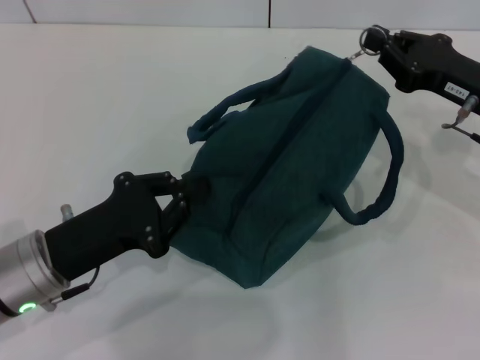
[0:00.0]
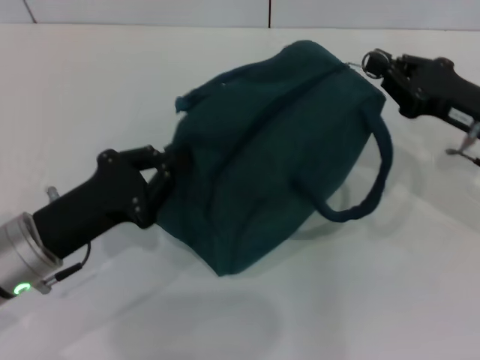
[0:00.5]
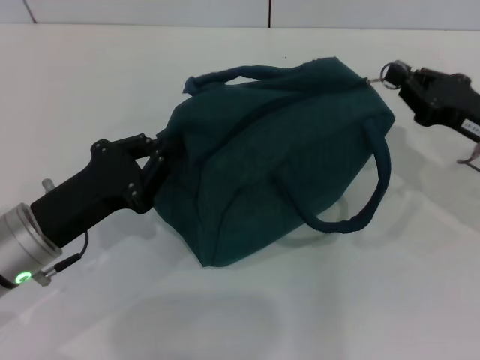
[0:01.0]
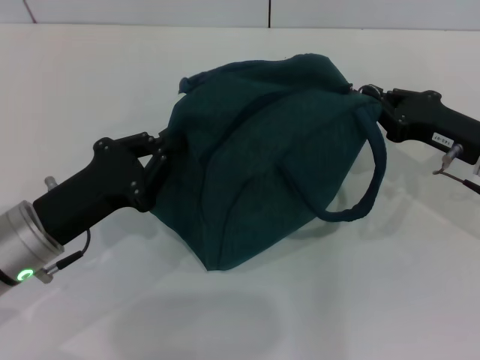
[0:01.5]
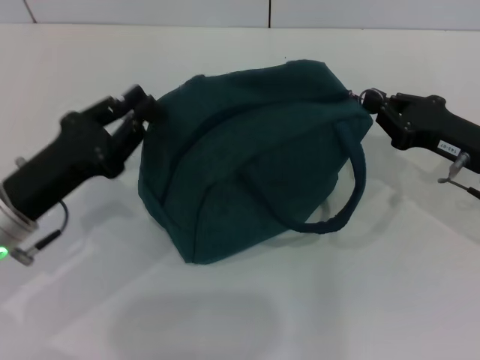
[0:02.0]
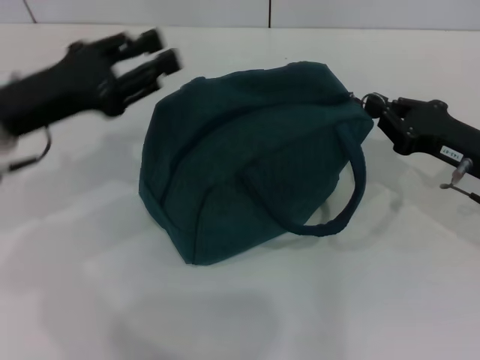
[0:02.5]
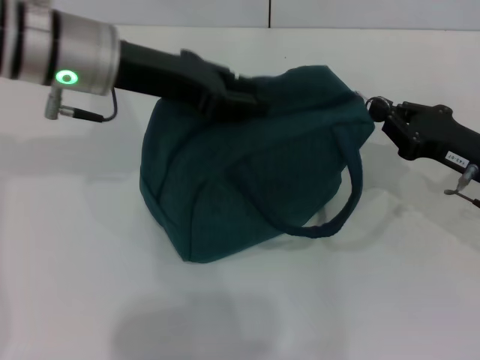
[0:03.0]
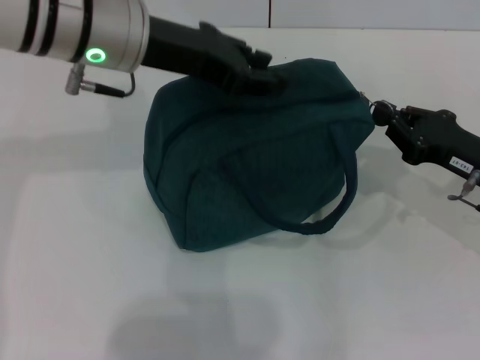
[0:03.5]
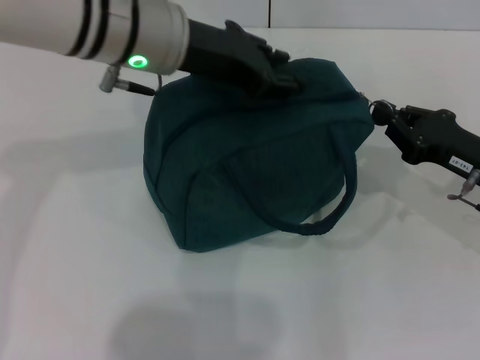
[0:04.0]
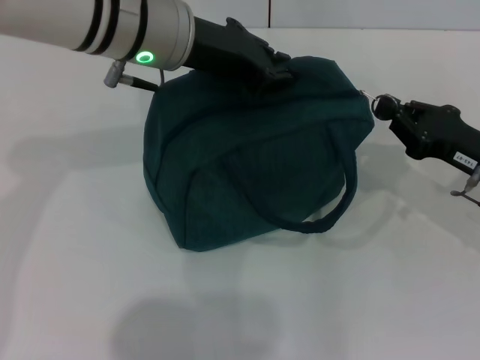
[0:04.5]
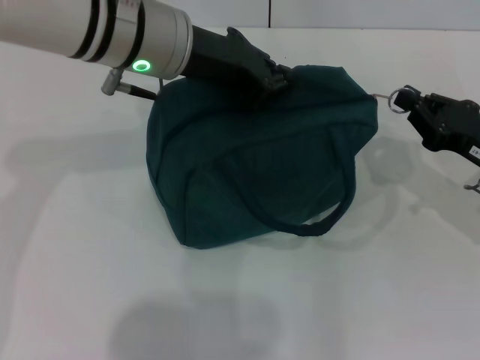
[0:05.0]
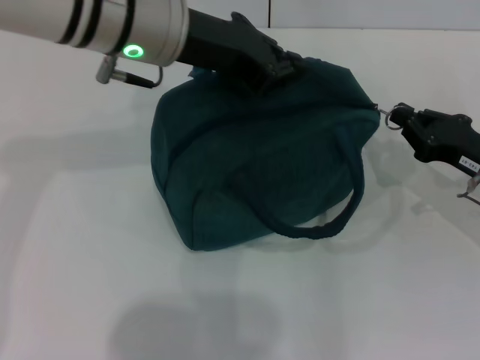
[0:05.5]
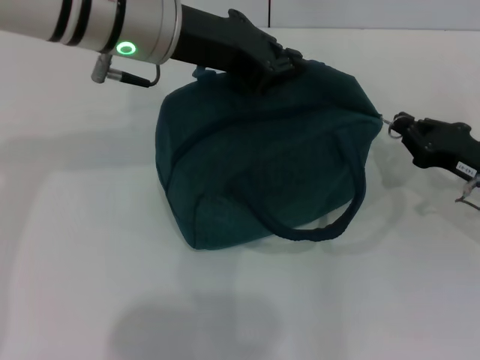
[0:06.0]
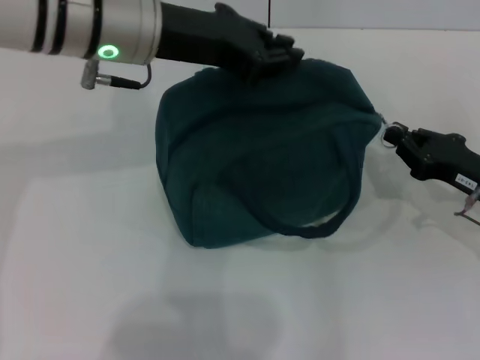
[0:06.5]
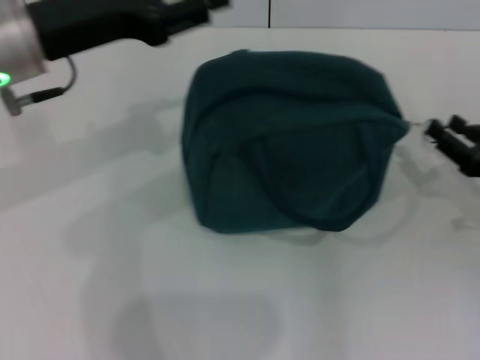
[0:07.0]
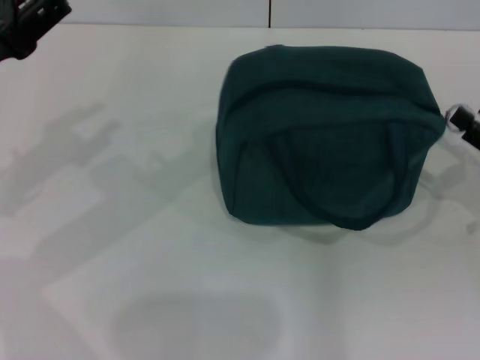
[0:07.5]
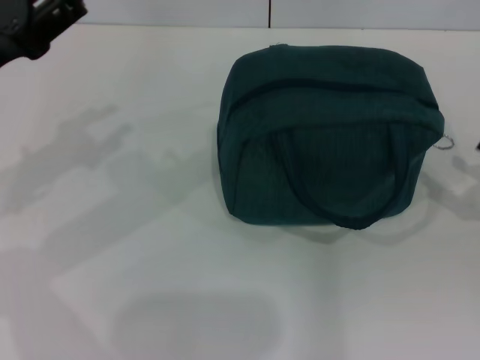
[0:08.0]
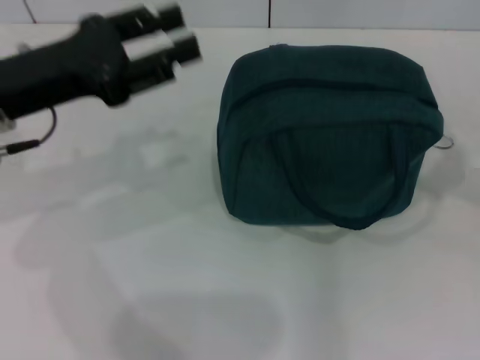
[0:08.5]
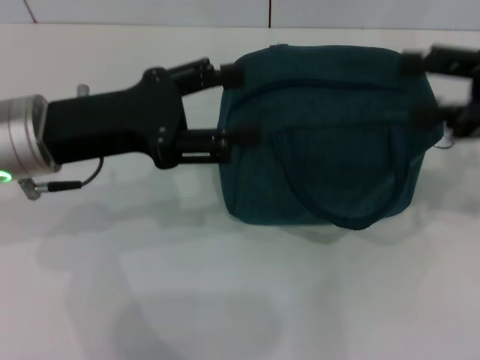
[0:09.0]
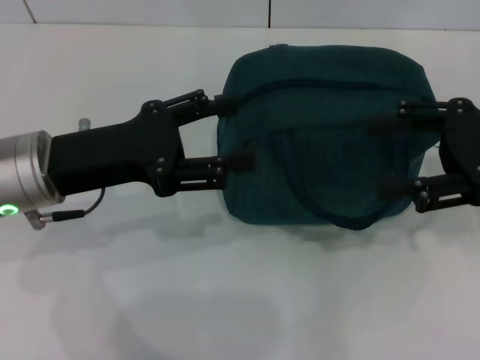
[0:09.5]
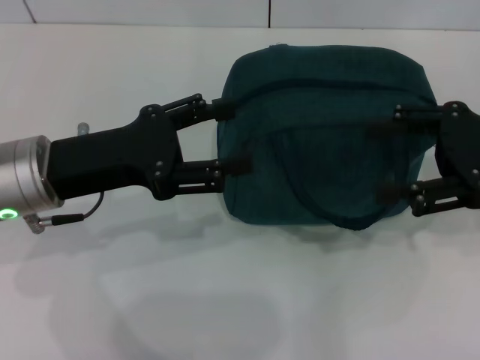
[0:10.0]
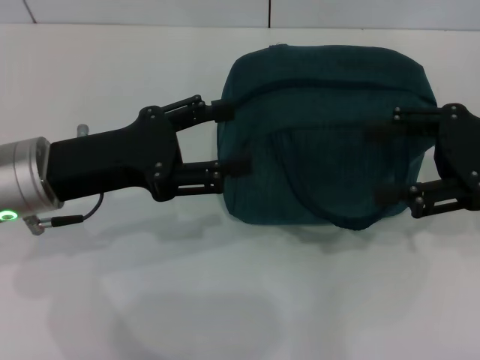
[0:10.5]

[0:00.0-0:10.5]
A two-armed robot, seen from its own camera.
Step, 0:00.0 to 0:06.5: Hold the lunch bag with your left hand.
Step, 0:07.0 to 0:08.0: Zip up the lunch bag with your right hand.
0:00.0 to 0:02.0: The right gripper ends up approximately 5 cm from where it was.
0:02.0 to 0:04.0: The left gripper travels upward, to the right and forward by roughly 25 cm, and opens up.
0:04.0 to 0:06.5: The left gripper closes up.
0:06.5 to 0:08.5: The right gripper heads upward and to the right, covering roughly 15 cm, and opens up. Meanwhile the left gripper shifts approximately 15 cm to the left, downward and backward, and opens its fingers.
0:08.5 to 0:10.5: The right gripper travels to the left by about 10 cm, while the left gripper changes place by approximately 5 cm, and opens its fingers.
